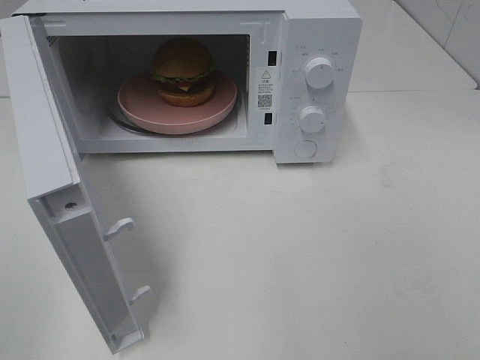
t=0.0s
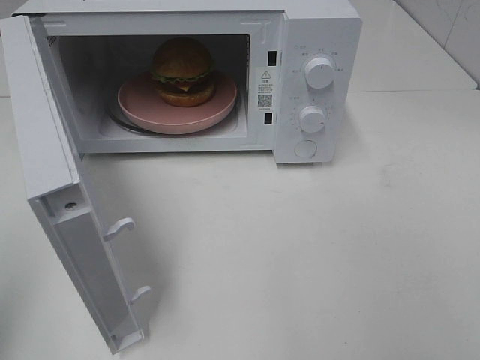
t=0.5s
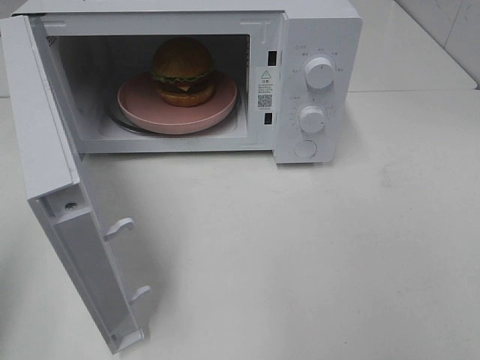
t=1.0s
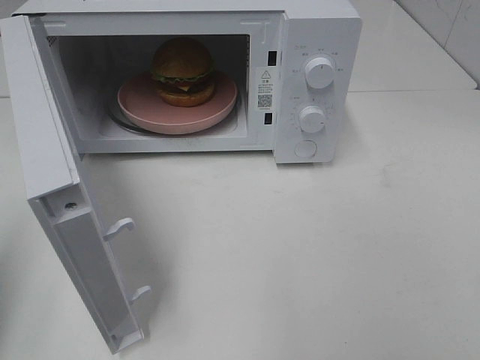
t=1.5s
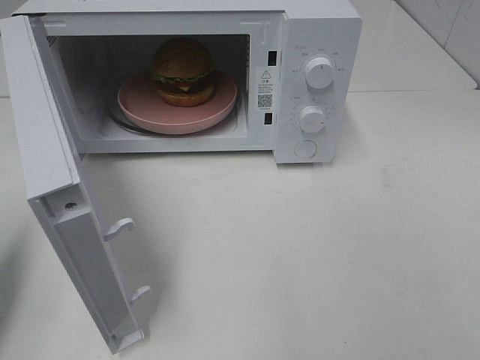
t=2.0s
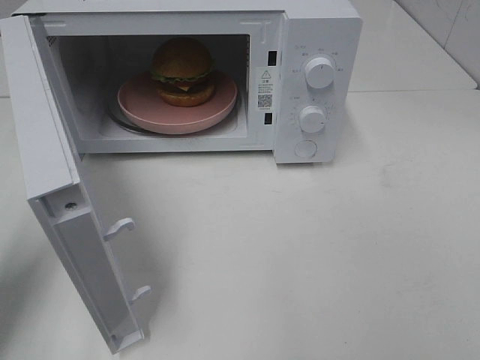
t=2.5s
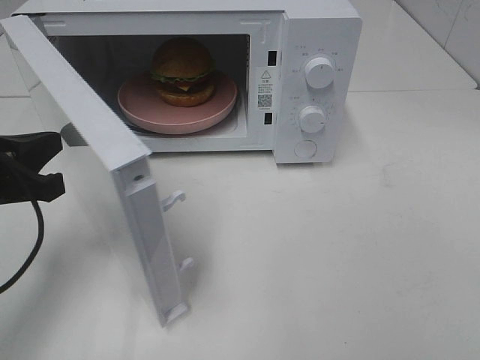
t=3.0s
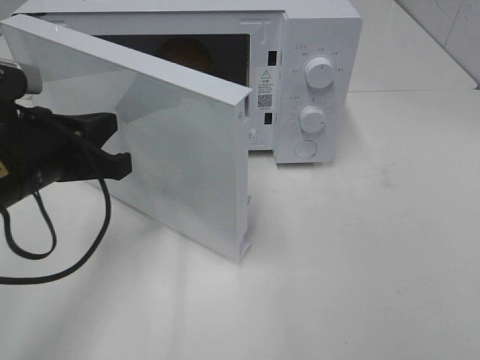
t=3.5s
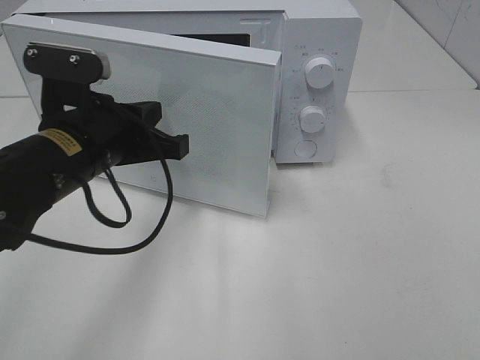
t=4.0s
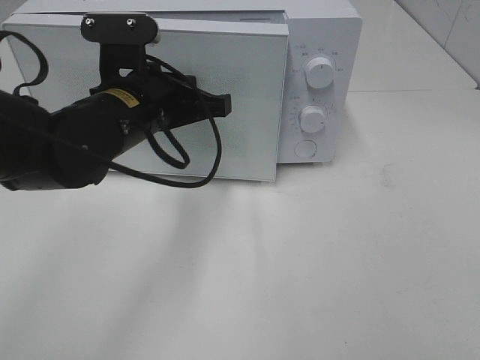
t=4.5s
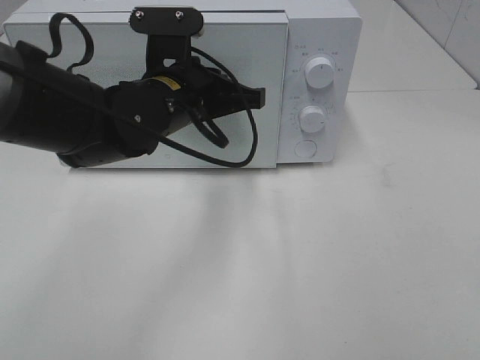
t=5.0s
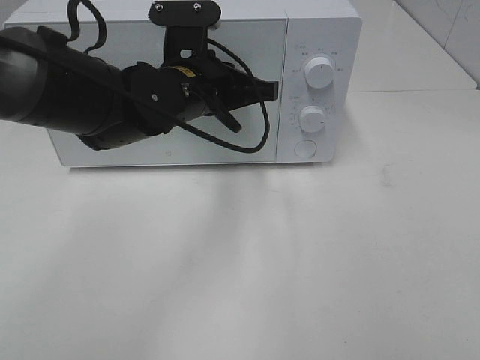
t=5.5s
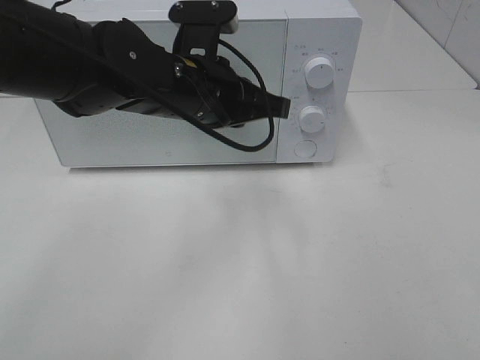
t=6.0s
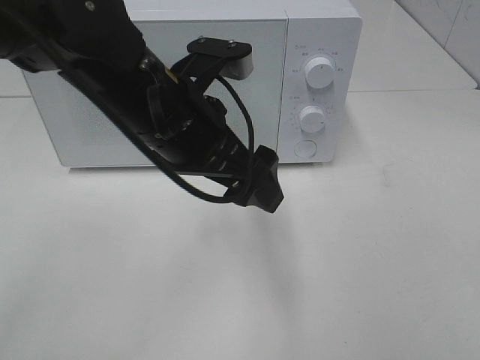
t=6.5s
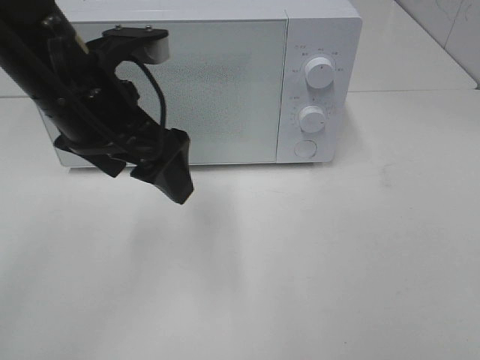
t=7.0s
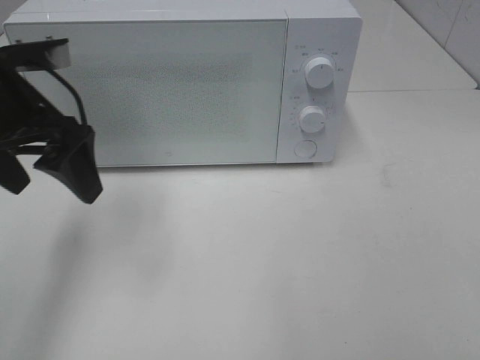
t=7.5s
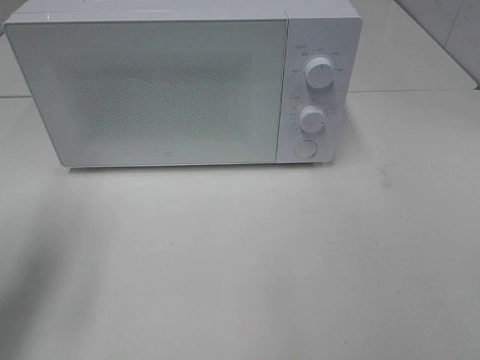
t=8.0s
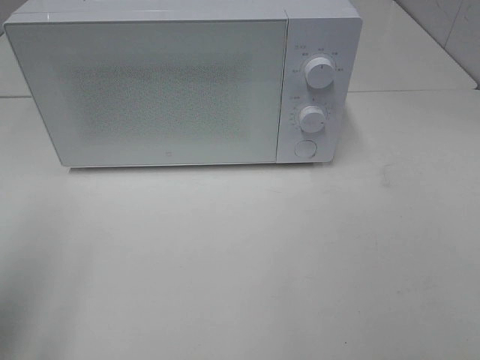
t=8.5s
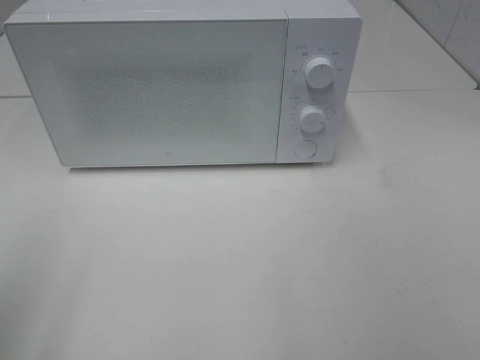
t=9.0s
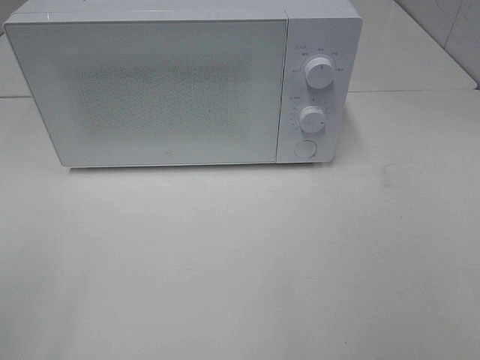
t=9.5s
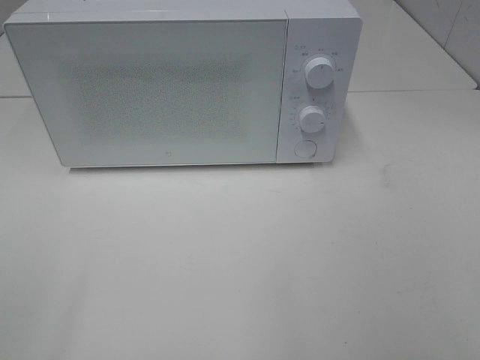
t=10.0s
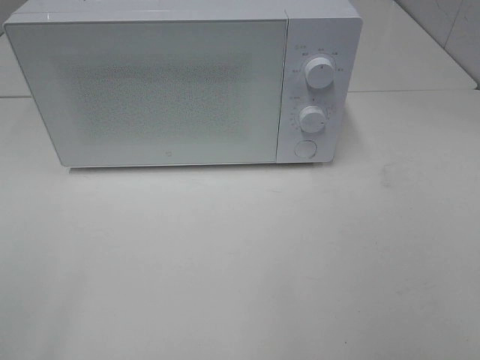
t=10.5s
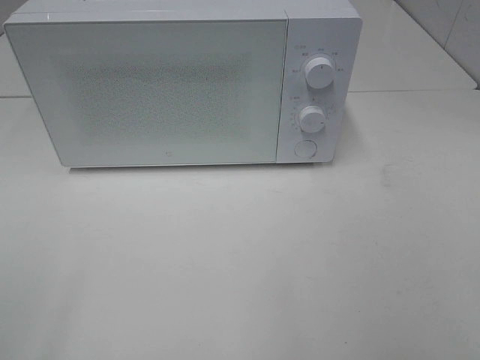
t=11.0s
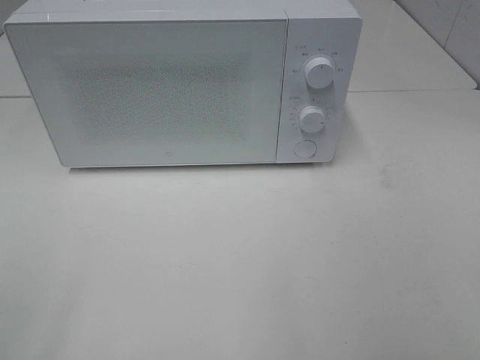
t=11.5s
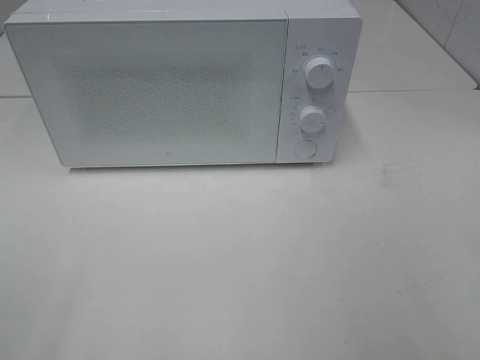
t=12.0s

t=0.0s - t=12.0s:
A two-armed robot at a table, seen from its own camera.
Task of the whole recording: Heat the burger.
Step, t=0.0s - t=5.5s: Left hand: close the microwave door.
t=0.0s - t=2.0s: The left gripper heads forward and downward, covering some 20 cm, and closes.
t=2.0s - t=4.0s: The left gripper moves to the right and forward, some 20 cm.
t=4.0s - t=6.0s: The left gripper travels to the right and forward by roughly 10 cm.
t=6.0s - t=8.0s: The left gripper moves to the left and backward, about 30 cm, and opens its fingers.
t=8.0s - t=10.0s: The left gripper moves backward, approximately 20 cm.

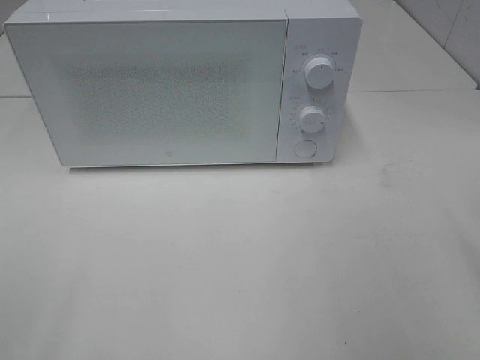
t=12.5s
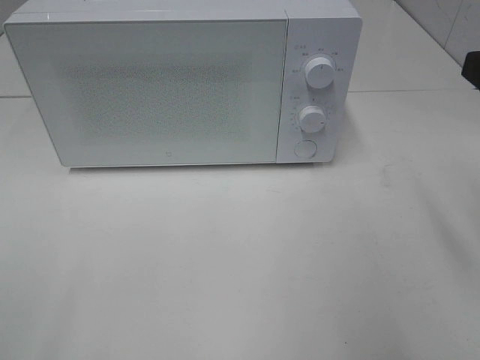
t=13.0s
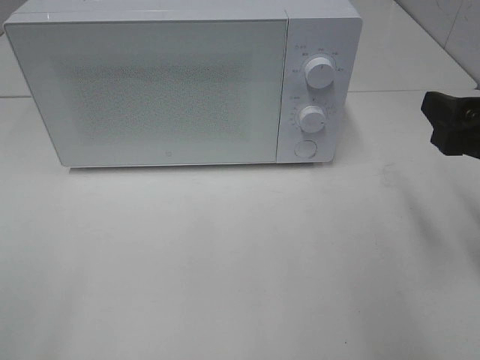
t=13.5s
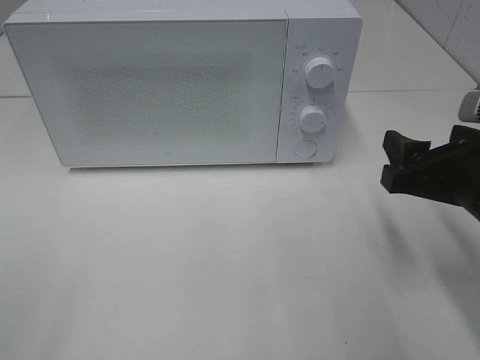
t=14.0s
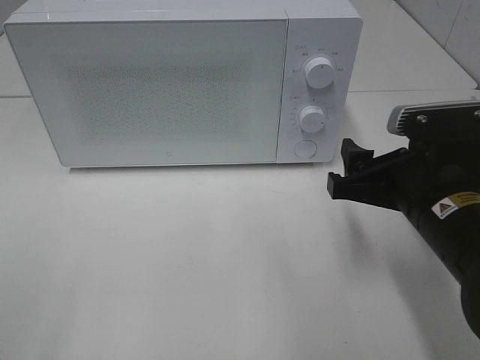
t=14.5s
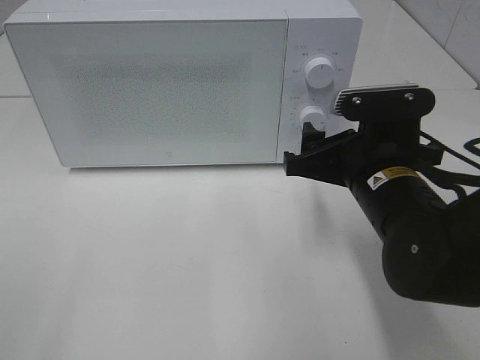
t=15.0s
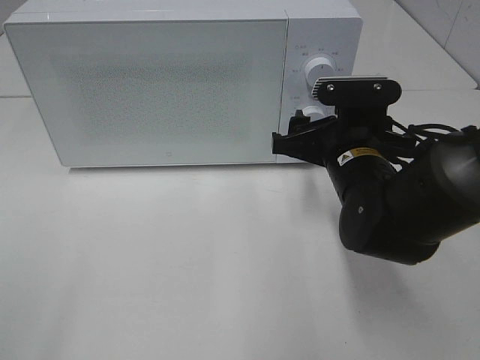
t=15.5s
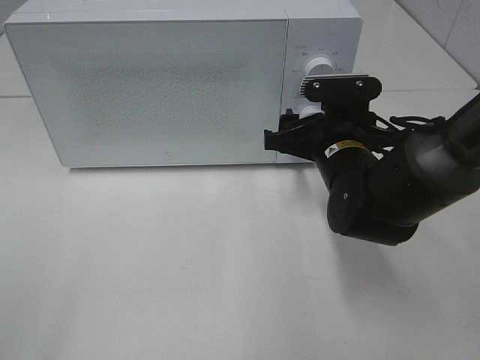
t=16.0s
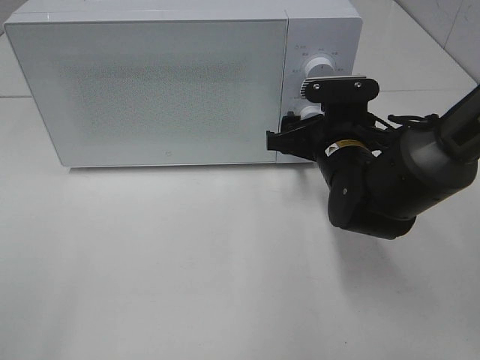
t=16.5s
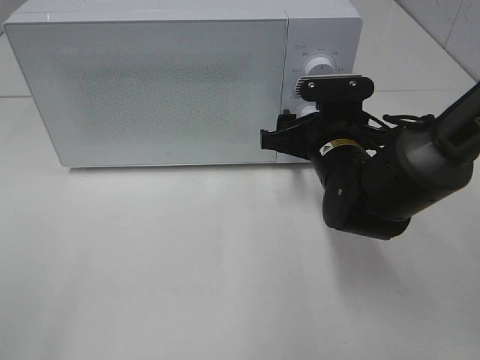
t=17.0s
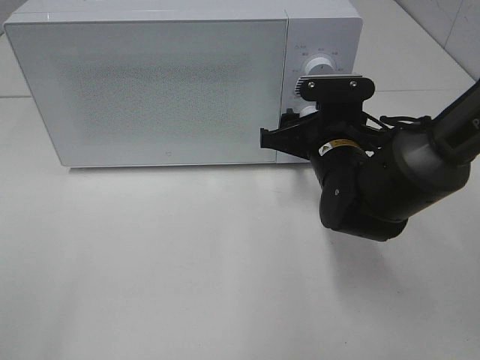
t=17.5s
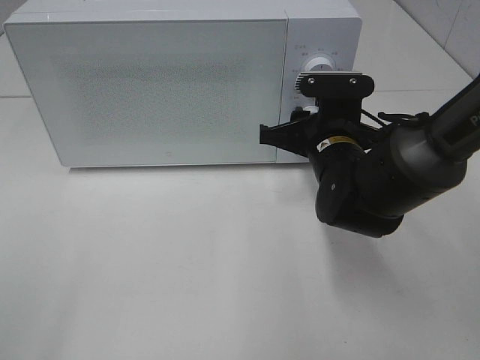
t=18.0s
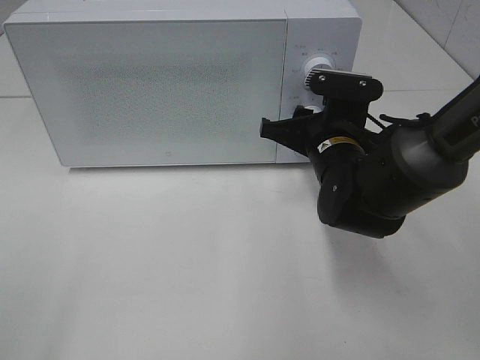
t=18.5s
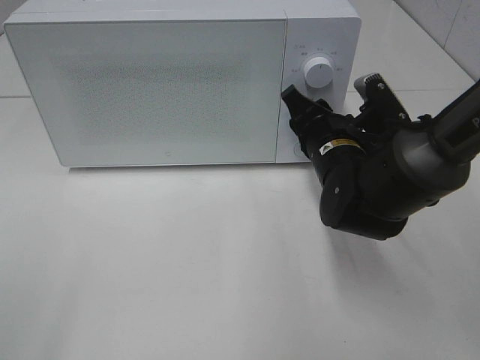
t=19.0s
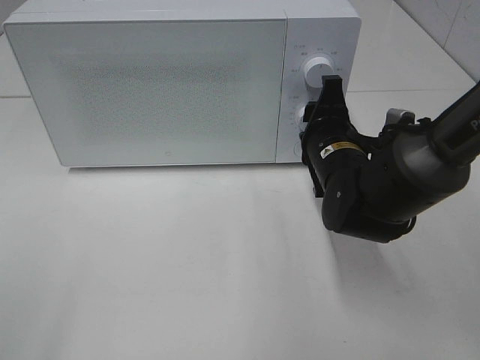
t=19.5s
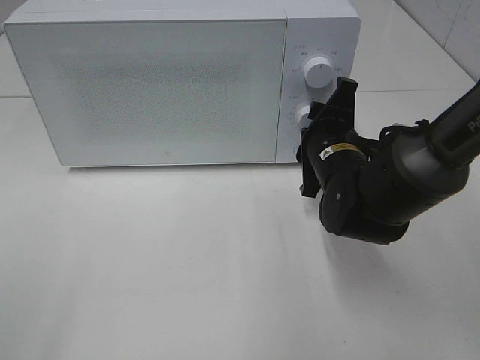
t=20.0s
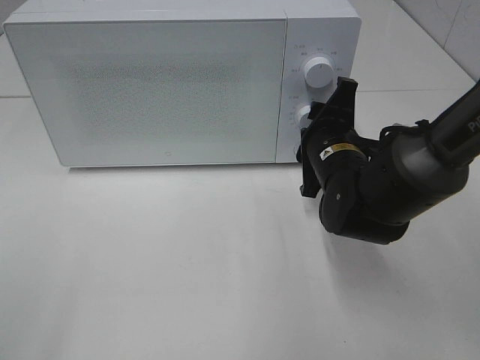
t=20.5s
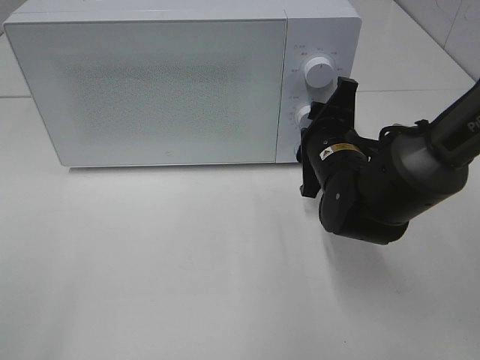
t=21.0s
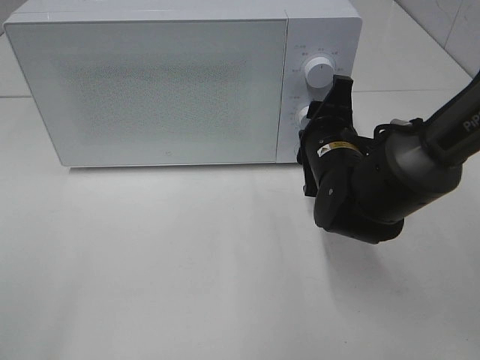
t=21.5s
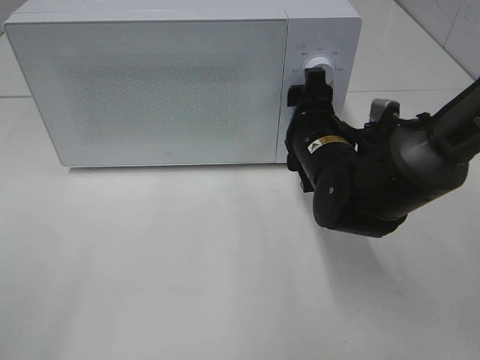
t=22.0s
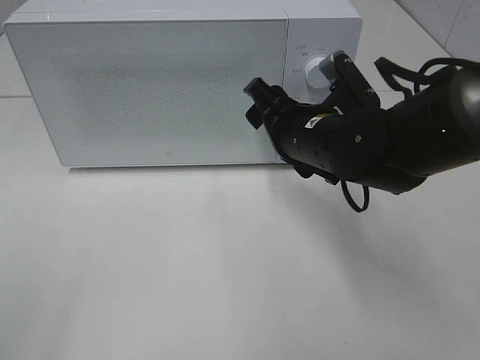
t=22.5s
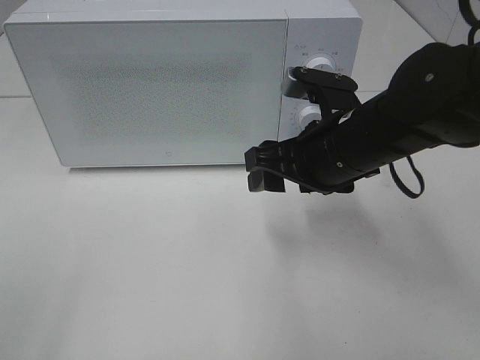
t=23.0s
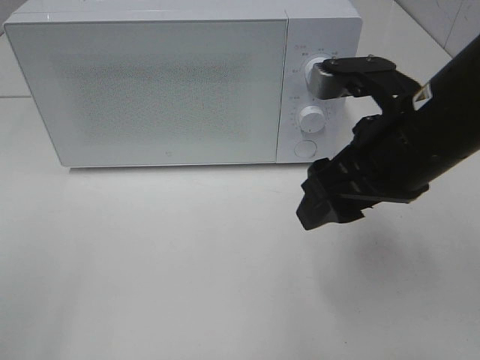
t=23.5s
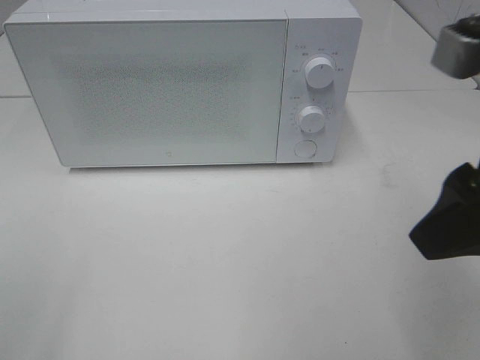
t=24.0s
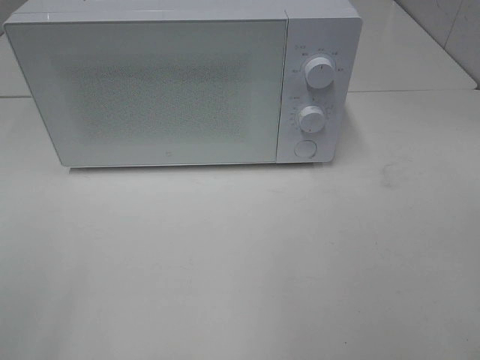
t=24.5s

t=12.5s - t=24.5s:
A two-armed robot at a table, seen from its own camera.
Task of the whole recording: Heat the burger.
Step, t=12.5s - t=21.5s: Right hand: twist timer button.
t=12.5s - t=14.5s: The right gripper heads downward, to the left and forward, covering some 20 cm.
t=14.5s - t=16.5s: The right gripper goes about 10 cm forward.
t=16.5s - t=18.5s: The right gripper closes up.
t=22.5s - t=24.5s: The right gripper moves backward, upward and to the right, some 35 cm.

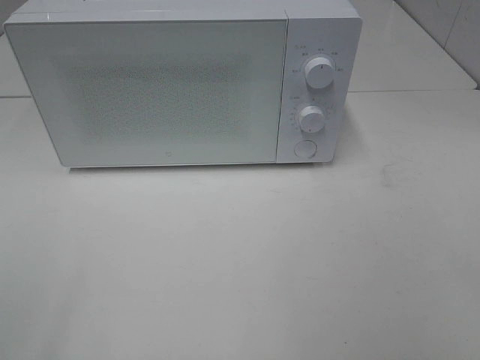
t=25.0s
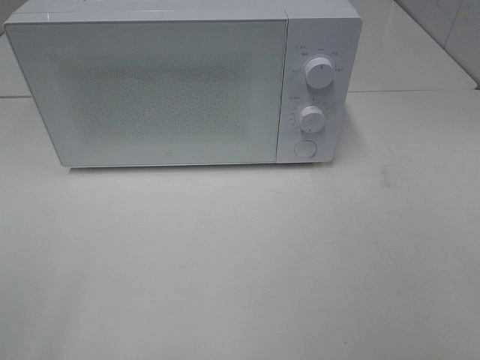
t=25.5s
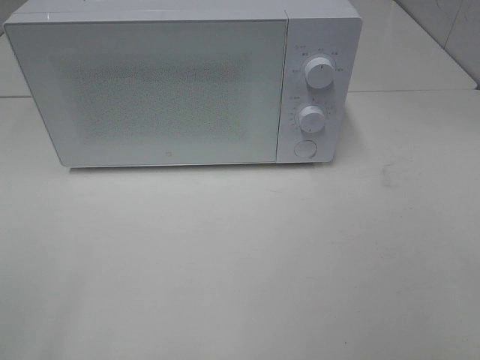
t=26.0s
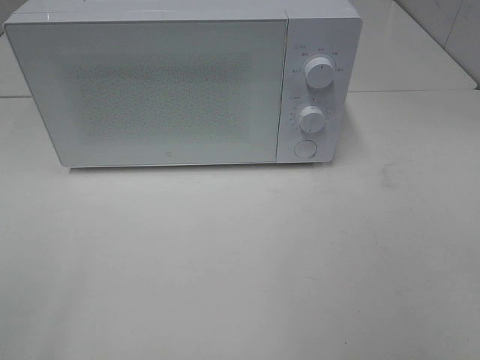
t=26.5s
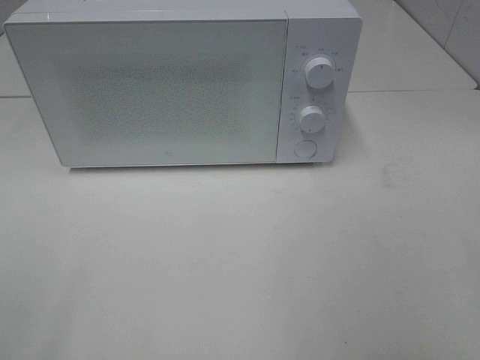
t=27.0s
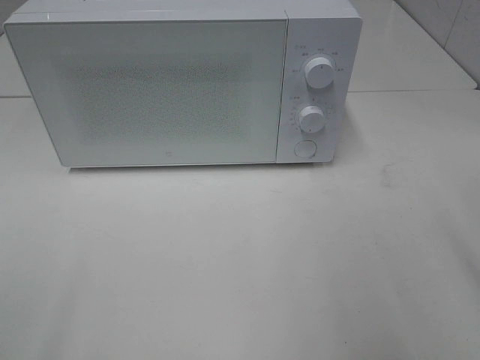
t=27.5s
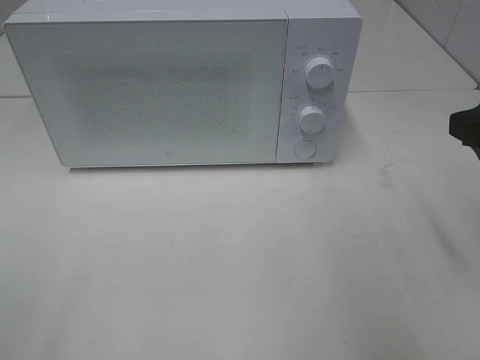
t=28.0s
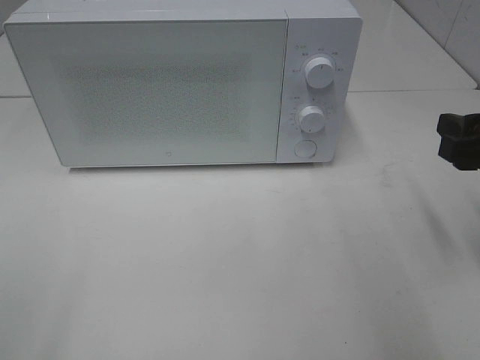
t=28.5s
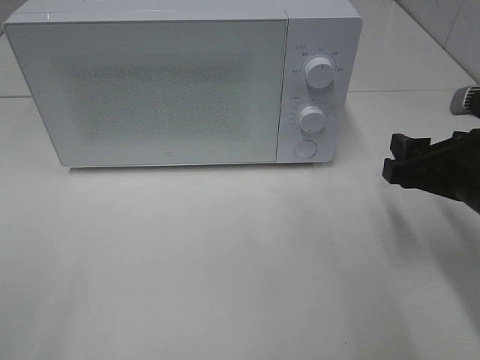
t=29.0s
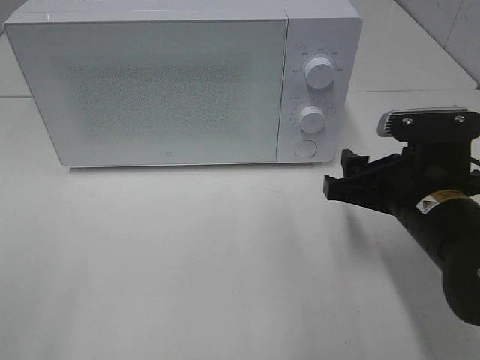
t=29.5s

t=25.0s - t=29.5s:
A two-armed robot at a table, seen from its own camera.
Task of the whole recording: Heat the burger.
t=27.0s - t=29.5s: The right gripper moves downward, forward and to the left, approximately 25 cm.
